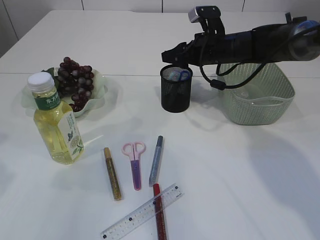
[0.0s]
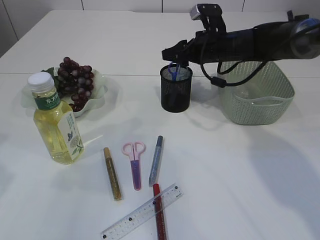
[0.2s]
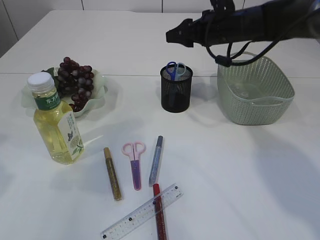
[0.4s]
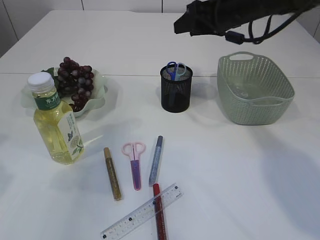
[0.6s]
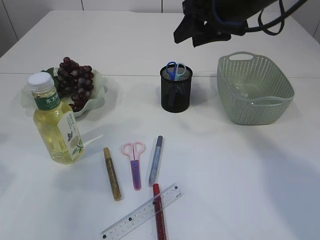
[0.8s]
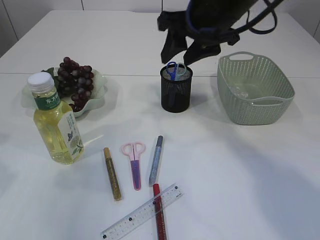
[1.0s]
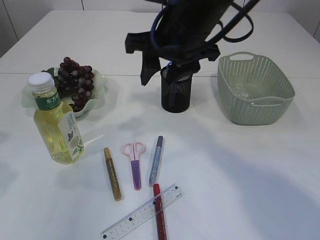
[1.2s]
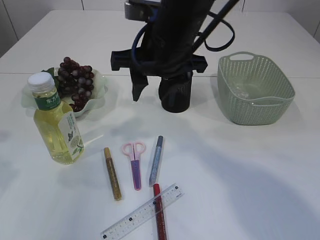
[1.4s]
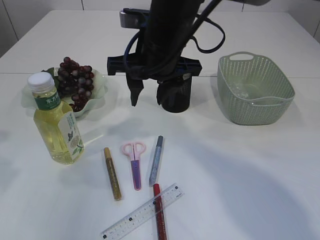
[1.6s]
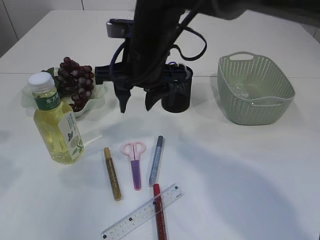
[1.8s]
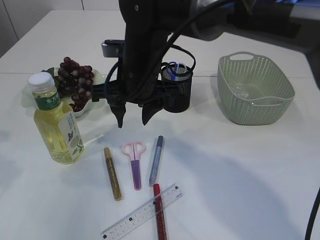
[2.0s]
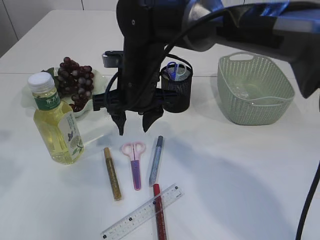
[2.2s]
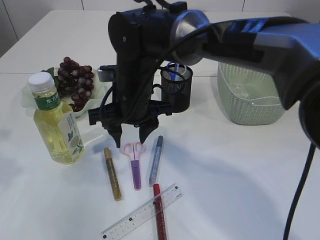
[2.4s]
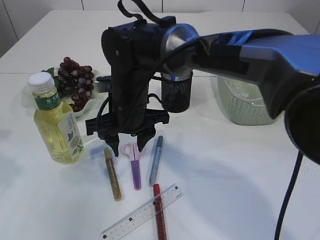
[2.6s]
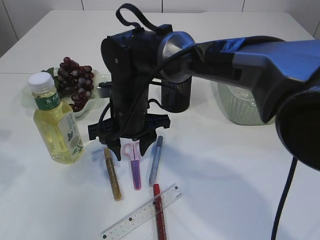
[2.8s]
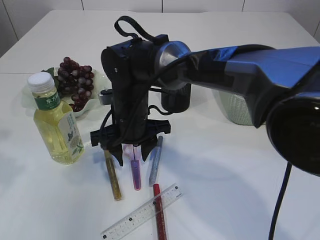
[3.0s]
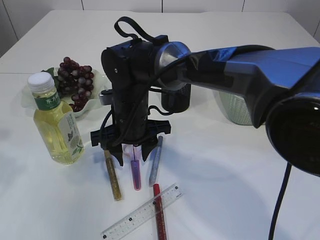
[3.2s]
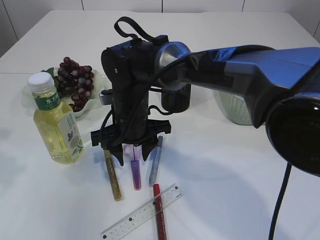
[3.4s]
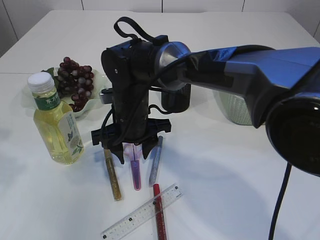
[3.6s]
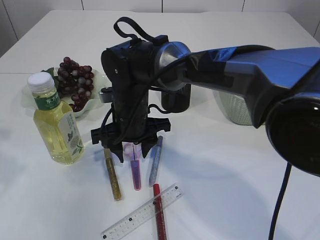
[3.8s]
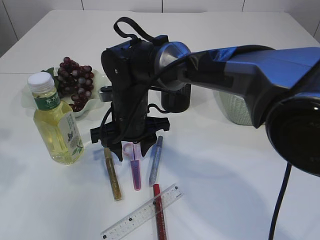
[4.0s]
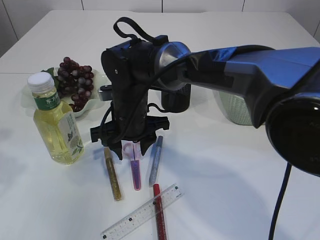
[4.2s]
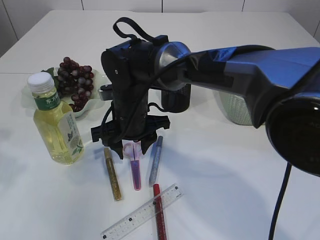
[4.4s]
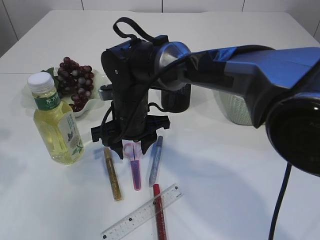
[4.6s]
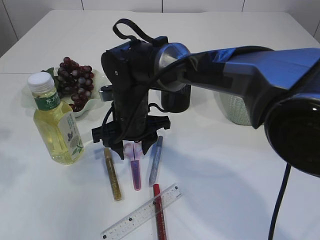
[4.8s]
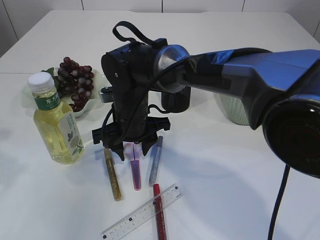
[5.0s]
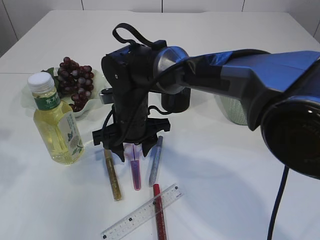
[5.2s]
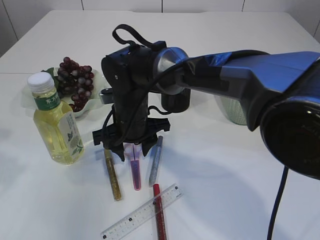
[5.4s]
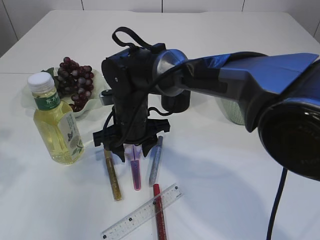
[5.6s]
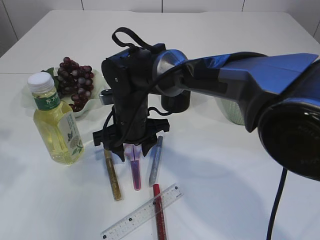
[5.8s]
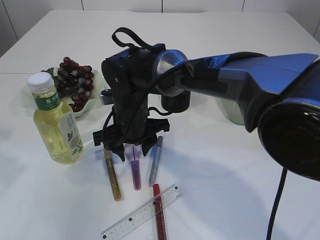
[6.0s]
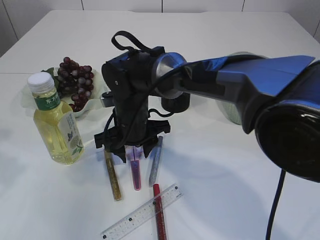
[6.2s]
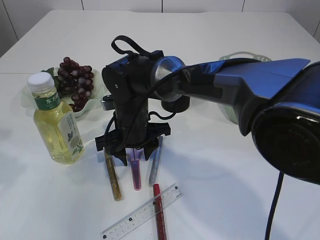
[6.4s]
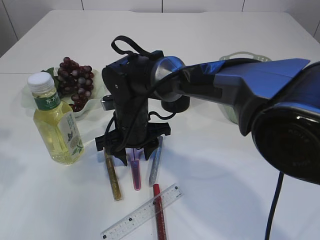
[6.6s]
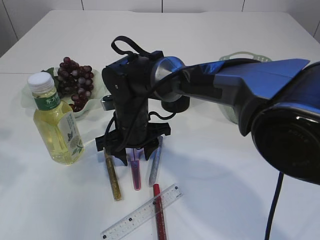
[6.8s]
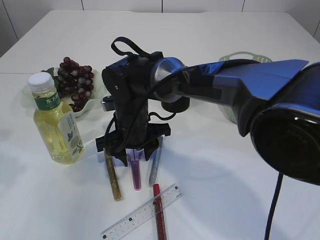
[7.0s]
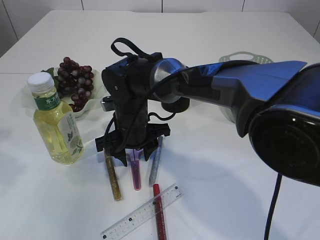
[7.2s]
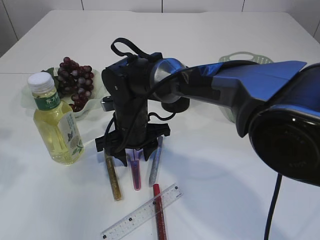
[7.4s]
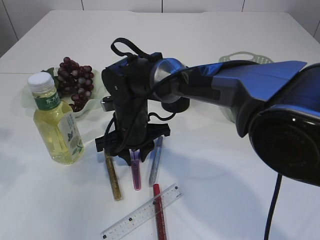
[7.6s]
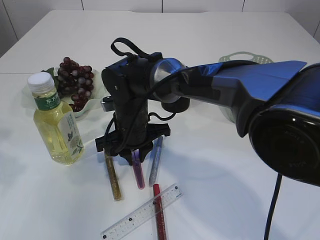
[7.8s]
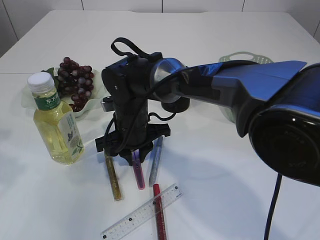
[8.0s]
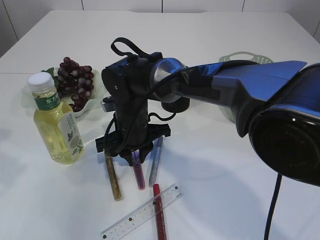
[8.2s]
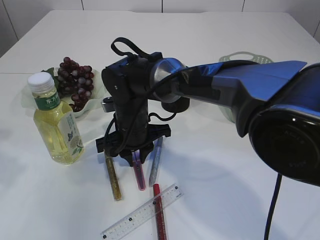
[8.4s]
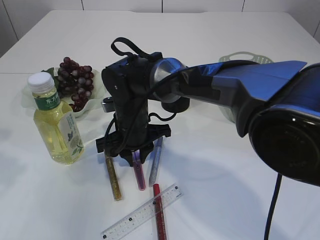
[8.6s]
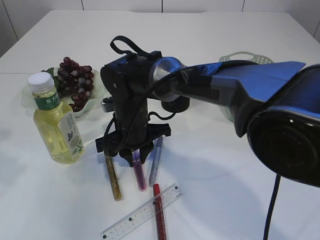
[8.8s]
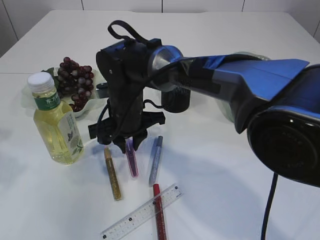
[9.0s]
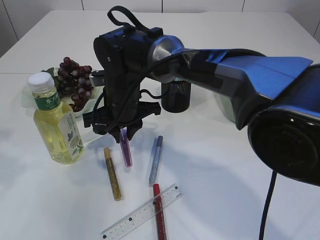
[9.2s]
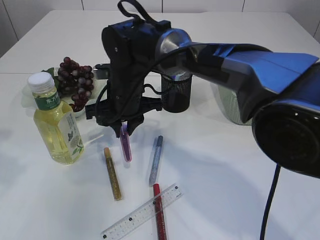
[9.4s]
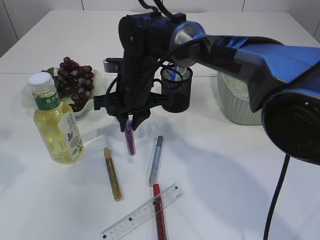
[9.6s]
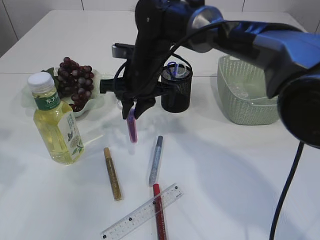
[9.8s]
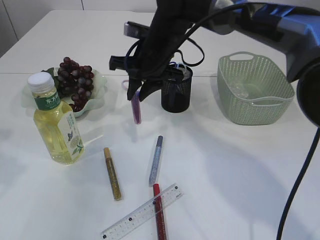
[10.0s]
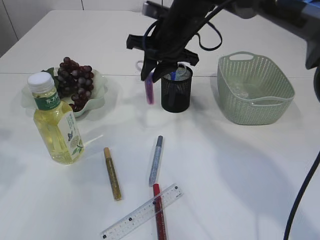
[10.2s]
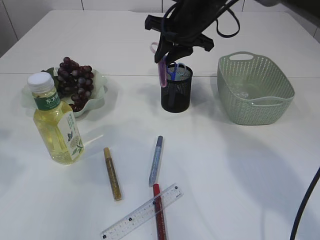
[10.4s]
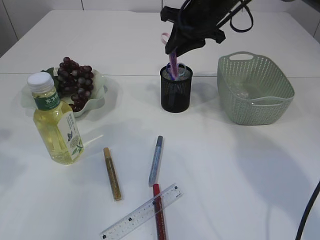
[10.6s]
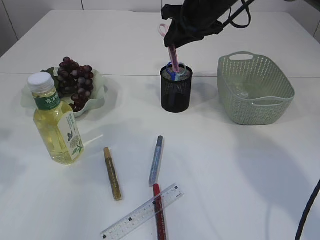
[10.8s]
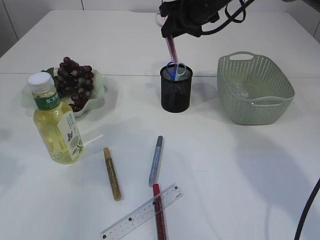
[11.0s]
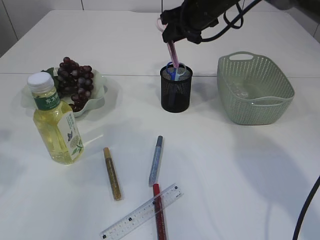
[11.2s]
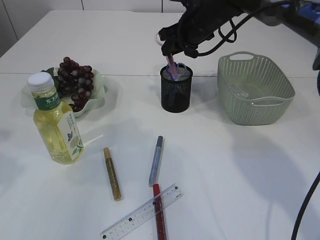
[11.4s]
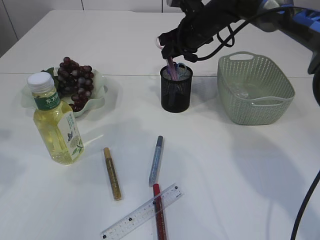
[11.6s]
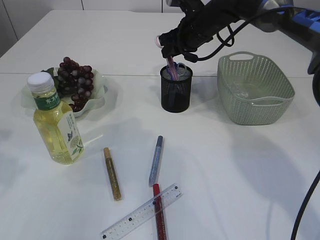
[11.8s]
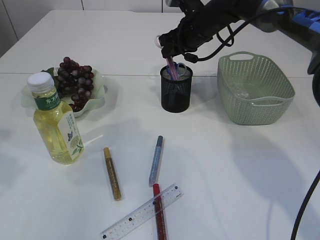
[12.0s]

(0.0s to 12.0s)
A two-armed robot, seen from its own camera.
Step, 0.4s - 9.4s: pick up the pink scissors.
0.0s - 1.6s: The right gripper heads backward, to the left and upward, covering roughly 20 cm.
1.6s - 3.0s: The right gripper heads downward and to the left, covering roughly 15 cm.
3.0s - 4.4s: The two grippers keep their place.
4.4s - 6.0s: The two grippers keep their place.
6.0s - 9.0s: The grippers move only a little.
9.0s - 10.4s: The right gripper is displaced to the right, upward and forward by approximately 20 cm.
10.4s - 12.0s: The right gripper heads forward, covering some 5 cm.

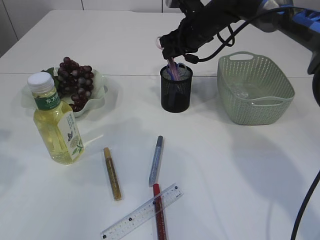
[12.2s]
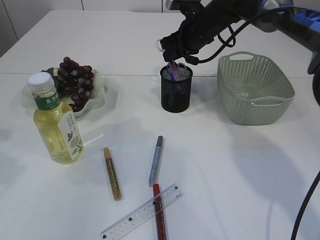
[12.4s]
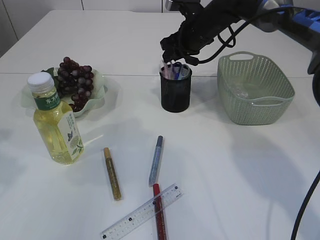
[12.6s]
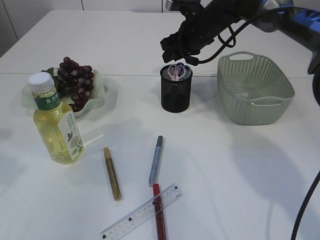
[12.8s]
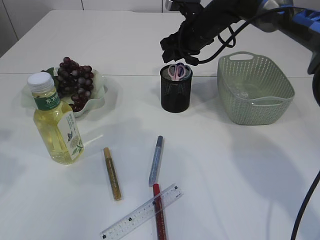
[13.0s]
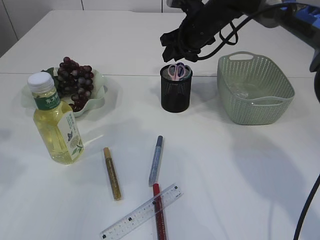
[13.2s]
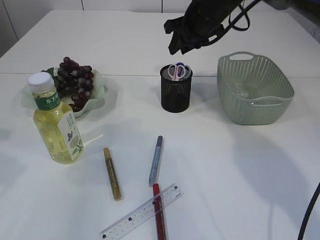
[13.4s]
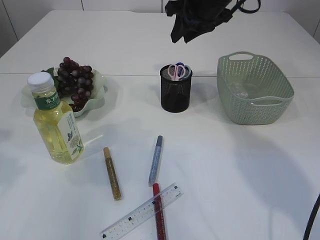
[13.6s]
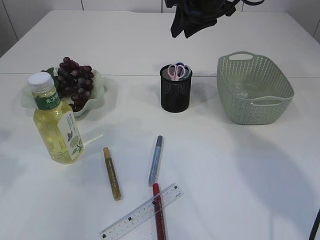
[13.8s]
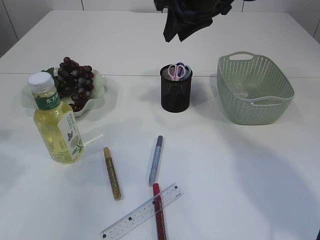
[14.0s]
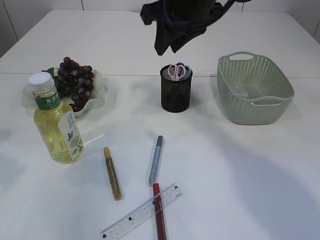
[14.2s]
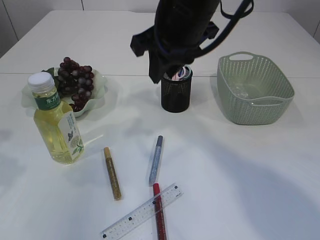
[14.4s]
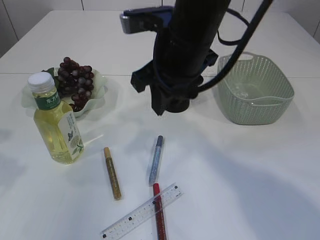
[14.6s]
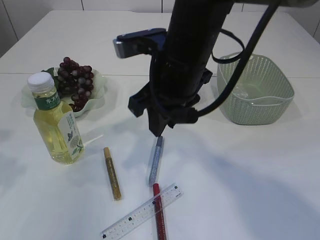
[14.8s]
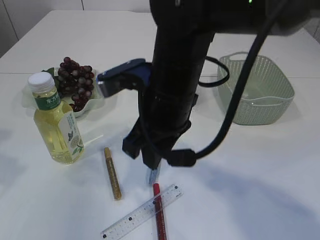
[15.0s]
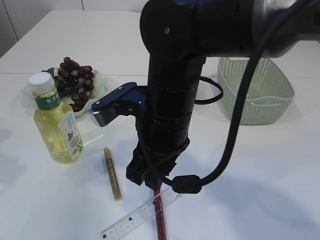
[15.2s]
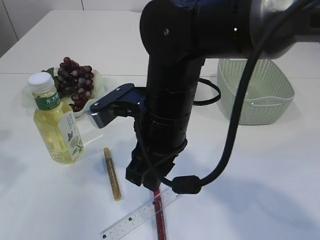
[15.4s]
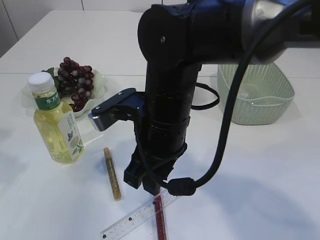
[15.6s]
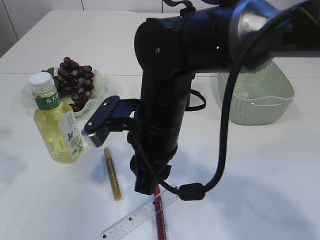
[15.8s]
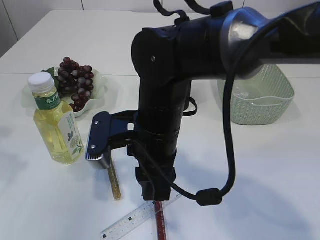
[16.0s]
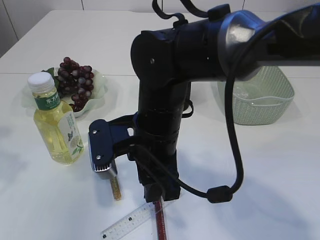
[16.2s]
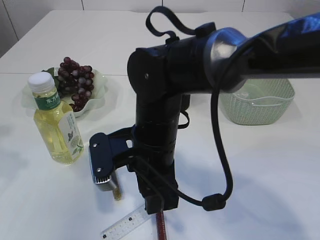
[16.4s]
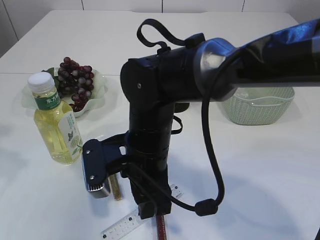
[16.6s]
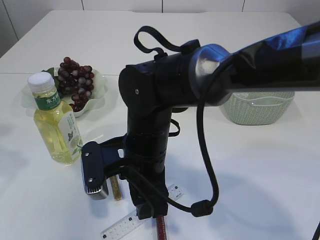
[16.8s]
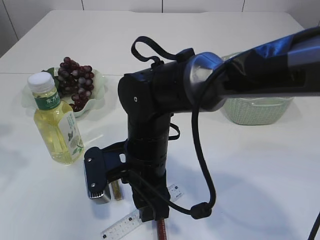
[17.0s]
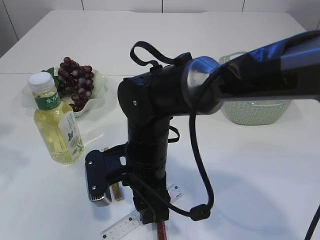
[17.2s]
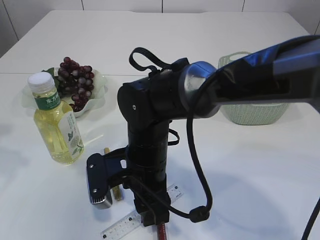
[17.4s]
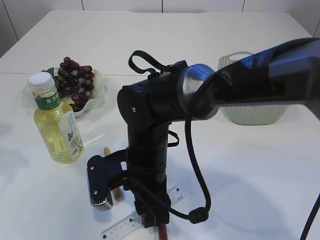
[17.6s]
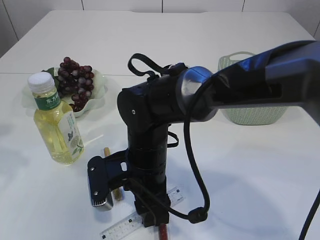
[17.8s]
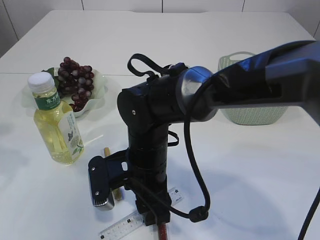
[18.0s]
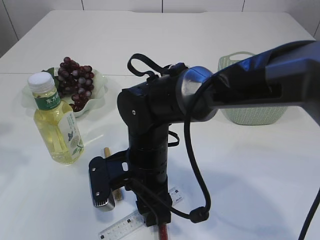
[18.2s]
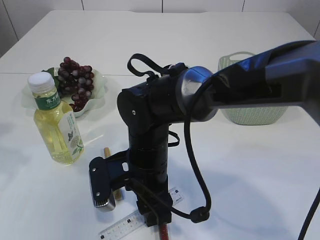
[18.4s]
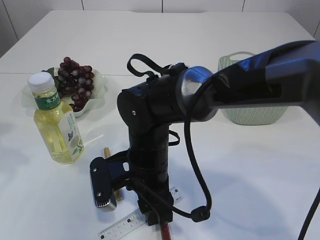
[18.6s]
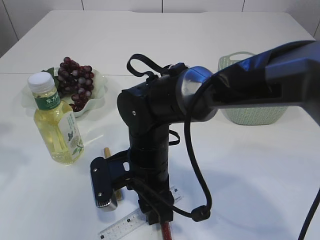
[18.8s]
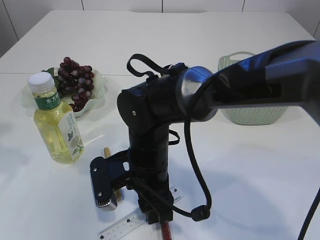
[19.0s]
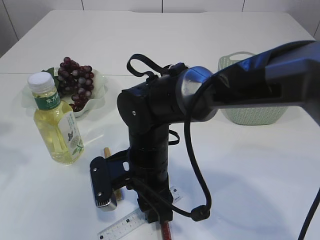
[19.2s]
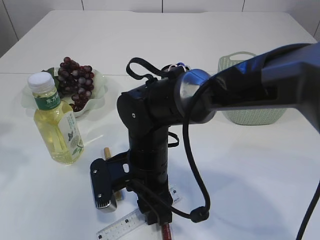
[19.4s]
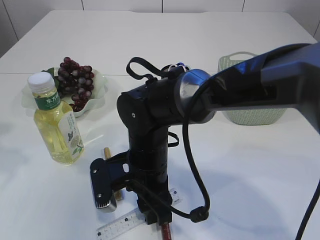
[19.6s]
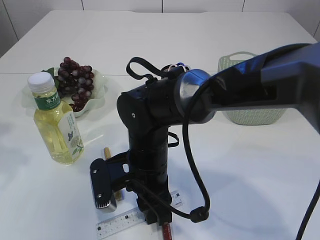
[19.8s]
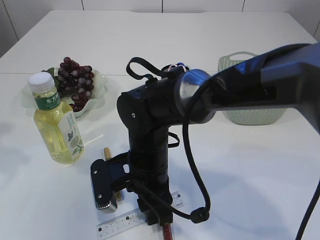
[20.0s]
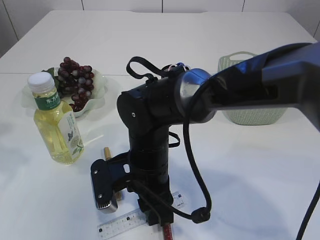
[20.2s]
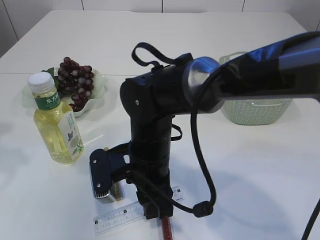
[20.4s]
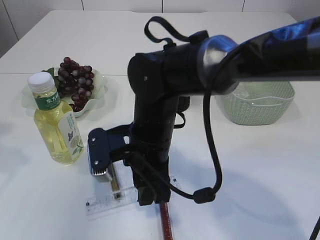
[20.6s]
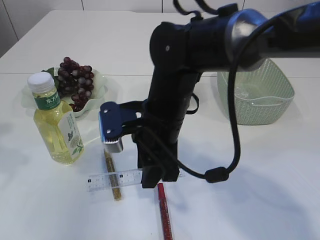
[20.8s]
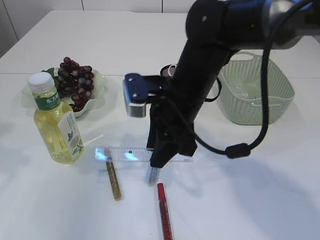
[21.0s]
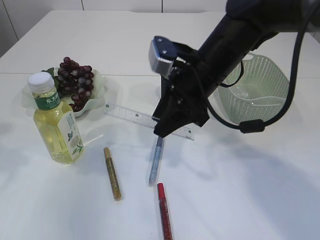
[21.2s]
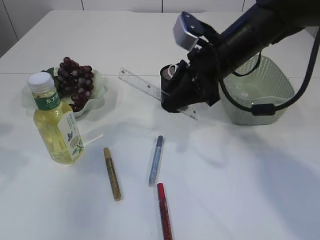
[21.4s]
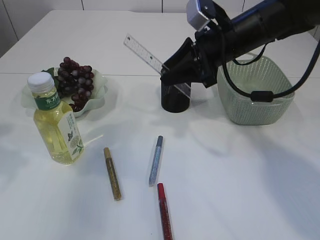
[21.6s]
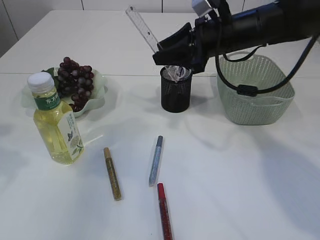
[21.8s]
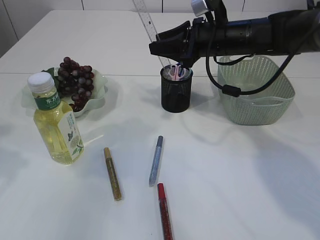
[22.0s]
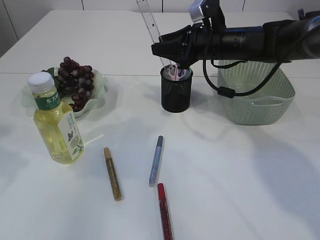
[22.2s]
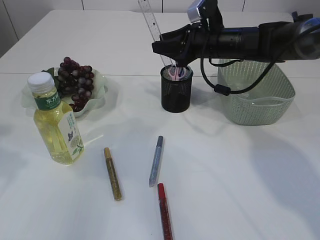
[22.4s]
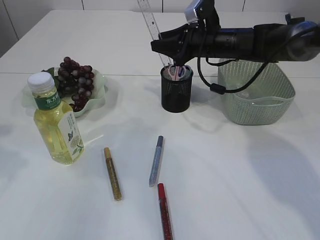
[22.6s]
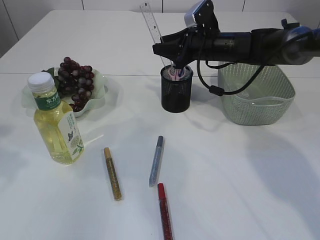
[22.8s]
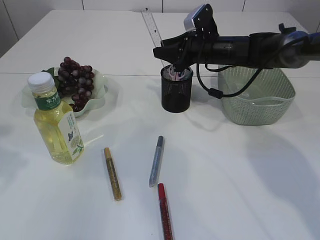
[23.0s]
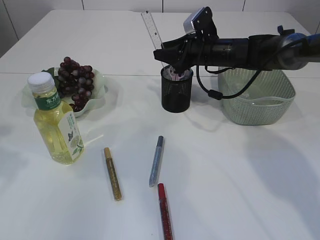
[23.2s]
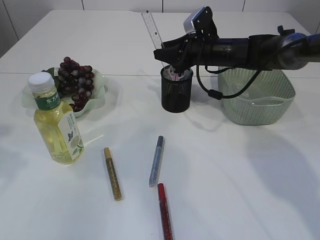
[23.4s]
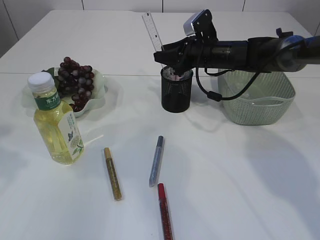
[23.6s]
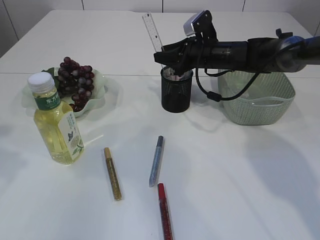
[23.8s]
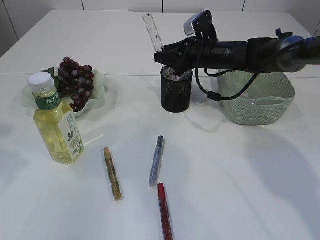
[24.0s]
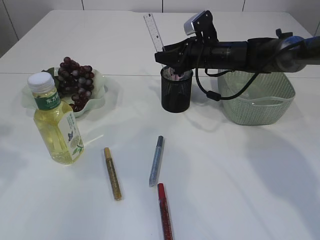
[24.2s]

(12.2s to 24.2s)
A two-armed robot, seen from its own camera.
Step, 13.4s - 20.6s: pick up the ruler.
12.2s - 13.8s: The right gripper moves upward and backward, some 10 cm.
13.8s - 15.2s: The right gripper is displaced backward, to the left and downward by approximately 25 cm.
15.2s - 16.6s: The right gripper goes approximately 5 cm downward.
18.2s - 19.8s: Both grippers stay about where they are.
19.8s - 21.2s: The right gripper is displaced upward, to the right and forward by roughly 15 cm.
21.2s - 22.6s: The right gripper goes about 15 cm forward.
22.6s - 24.2s: There are only small adjustments of the grippers.
